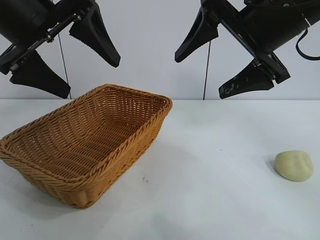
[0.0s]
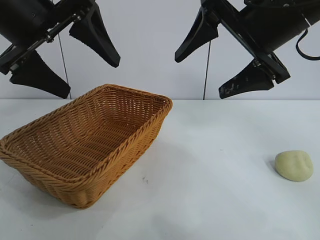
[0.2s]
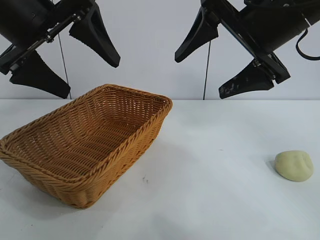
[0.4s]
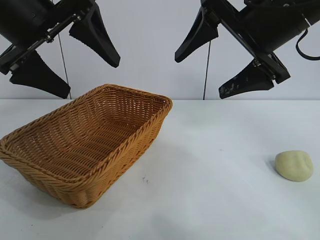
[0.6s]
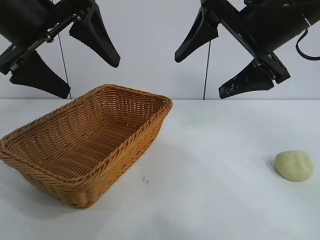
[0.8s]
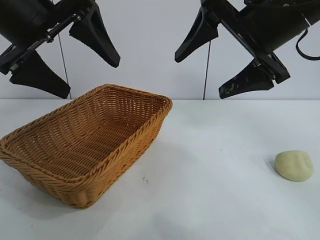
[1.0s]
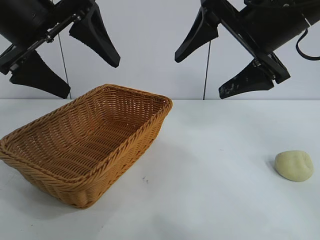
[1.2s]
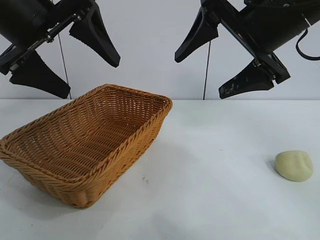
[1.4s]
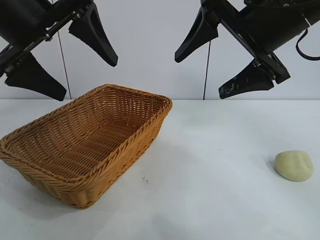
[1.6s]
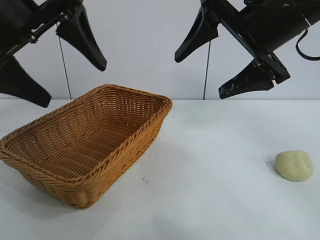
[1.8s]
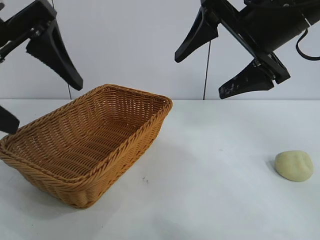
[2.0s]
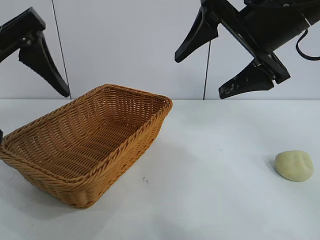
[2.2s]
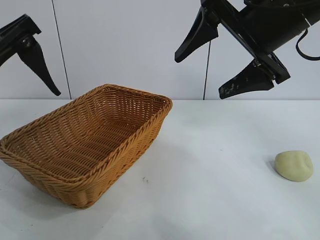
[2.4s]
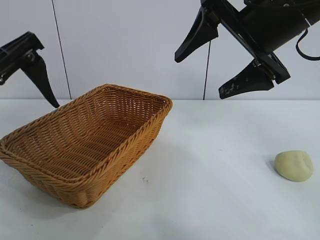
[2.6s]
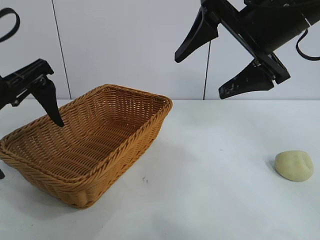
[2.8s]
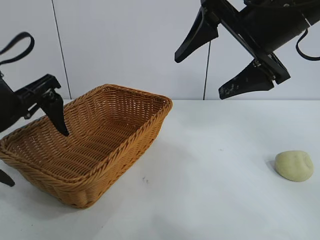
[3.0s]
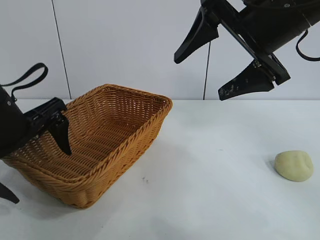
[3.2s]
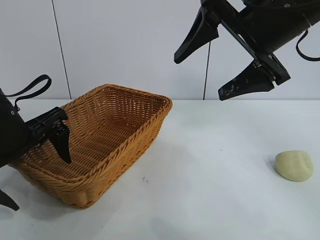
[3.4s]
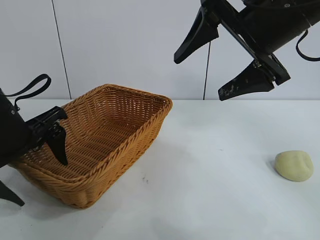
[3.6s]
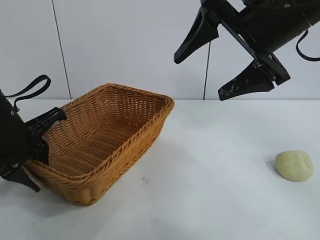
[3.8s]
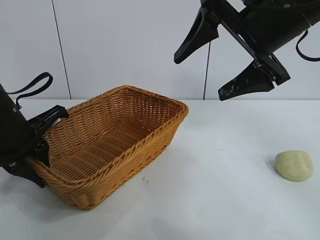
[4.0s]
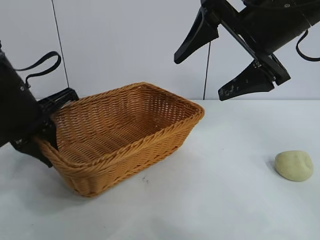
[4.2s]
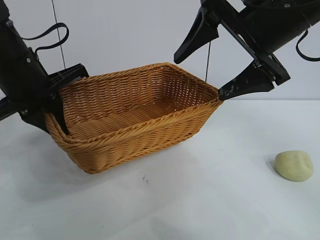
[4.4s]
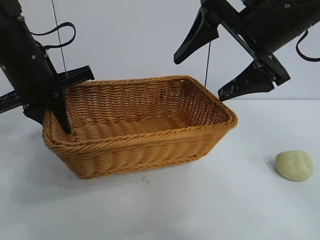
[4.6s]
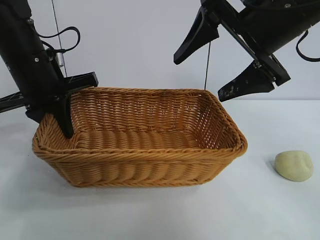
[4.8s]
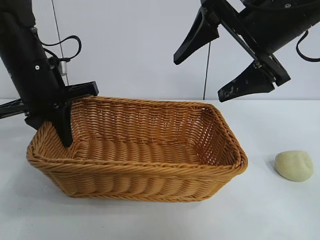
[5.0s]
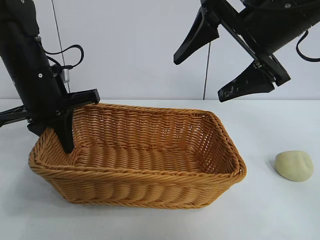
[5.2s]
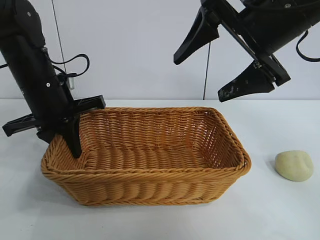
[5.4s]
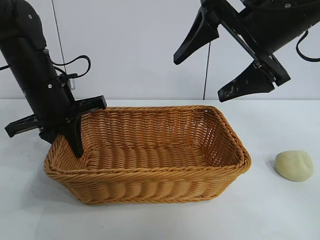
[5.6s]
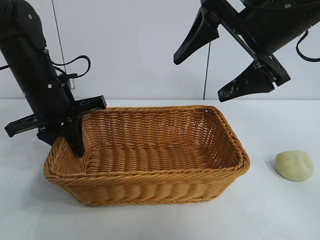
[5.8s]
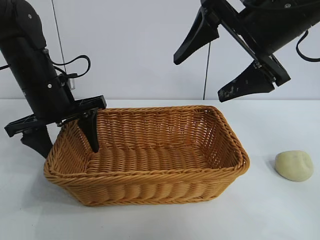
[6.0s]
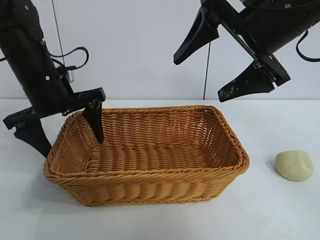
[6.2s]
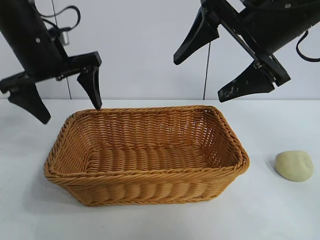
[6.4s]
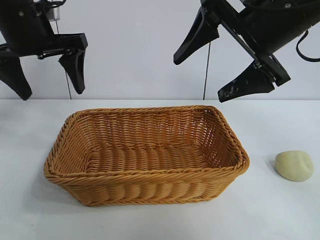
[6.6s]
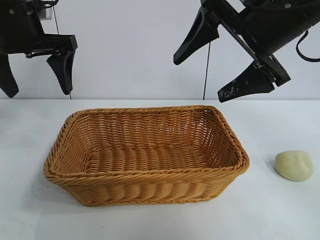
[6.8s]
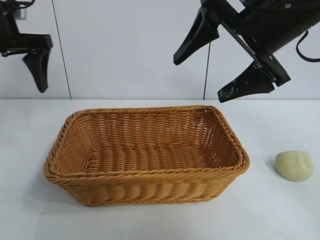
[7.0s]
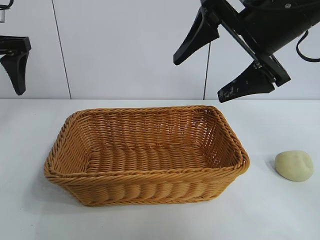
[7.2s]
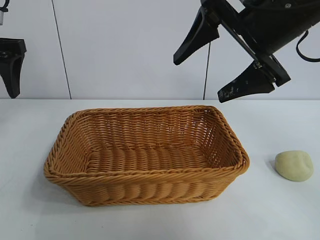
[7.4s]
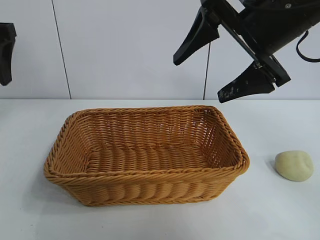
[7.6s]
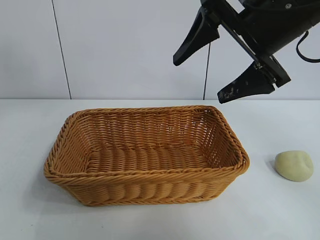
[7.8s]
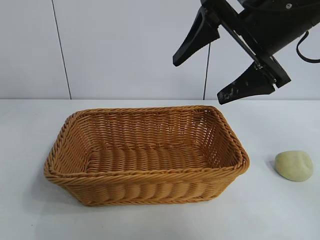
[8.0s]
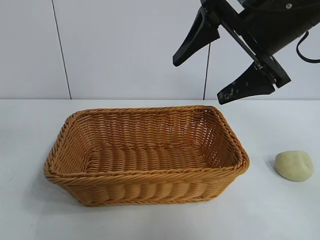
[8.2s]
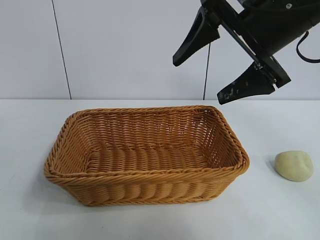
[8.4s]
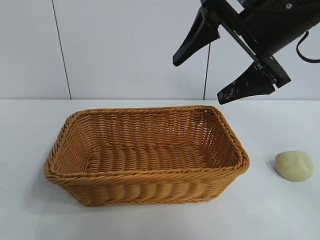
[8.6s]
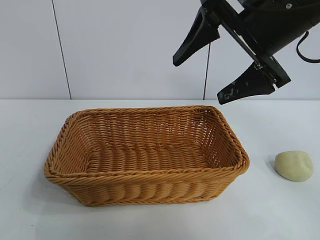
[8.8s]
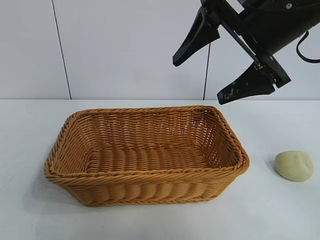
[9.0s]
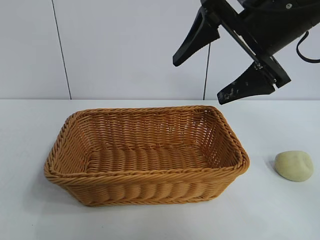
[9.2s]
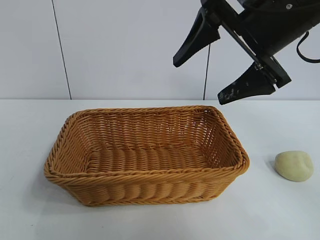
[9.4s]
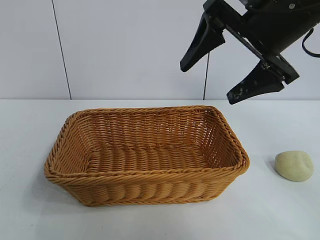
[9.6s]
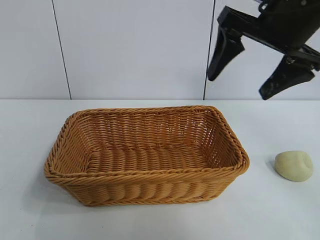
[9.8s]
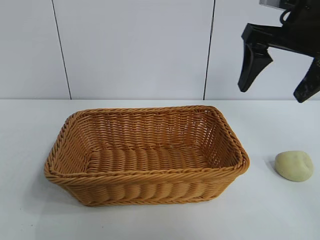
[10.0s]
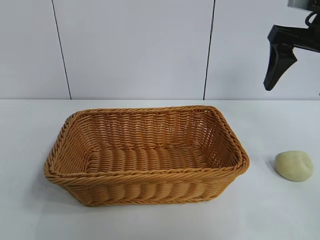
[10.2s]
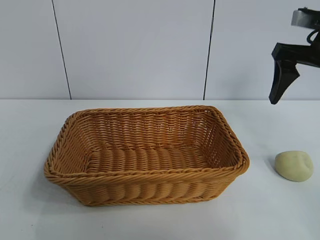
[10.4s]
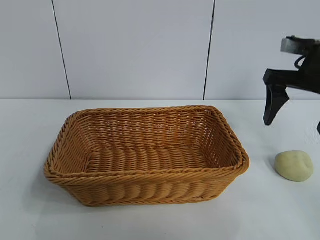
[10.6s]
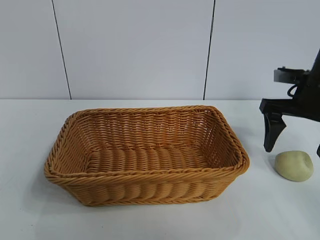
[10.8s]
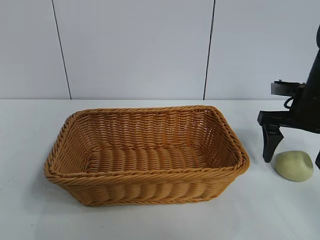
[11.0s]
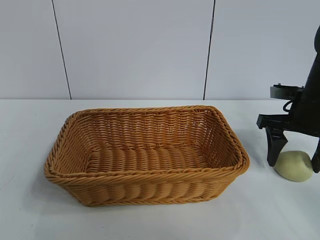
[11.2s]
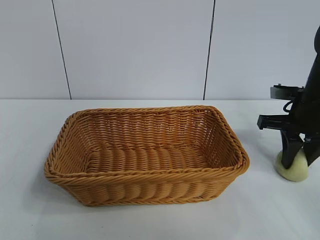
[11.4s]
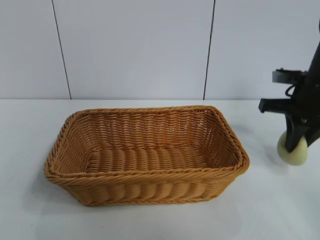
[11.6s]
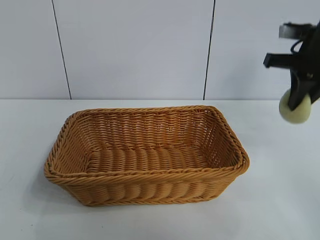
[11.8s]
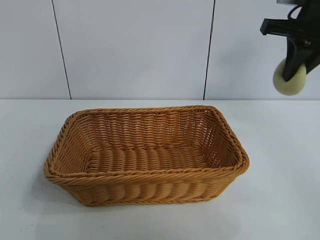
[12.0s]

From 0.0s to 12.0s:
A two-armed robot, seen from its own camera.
Task of the whole recording: pick up the egg yolk pastry and put it into the basket.
Step, from 1.4s to 3.8s: Grasp the basket with left gripper.
Step, from 4.0s to 6.0s: Place the basket in the center of view with left gripper.
Step, from 6.2s to 11.4s: Grasp egg yolk pastry with right gripper.

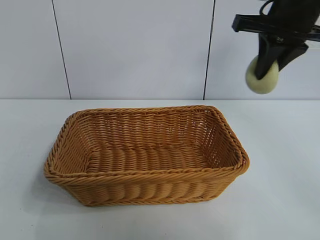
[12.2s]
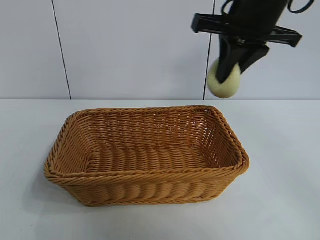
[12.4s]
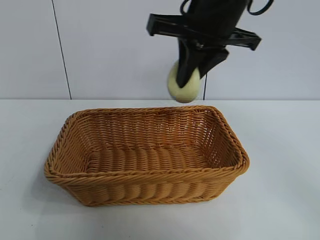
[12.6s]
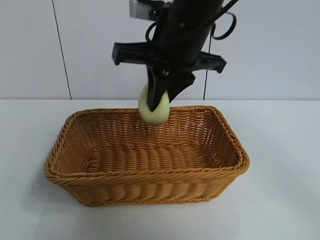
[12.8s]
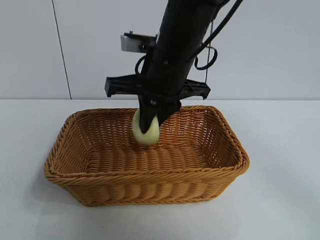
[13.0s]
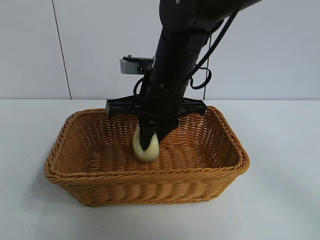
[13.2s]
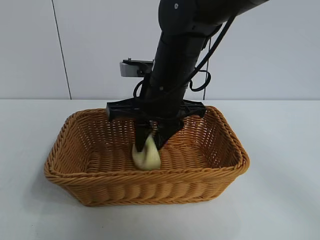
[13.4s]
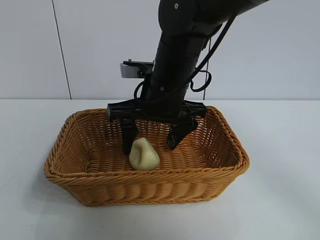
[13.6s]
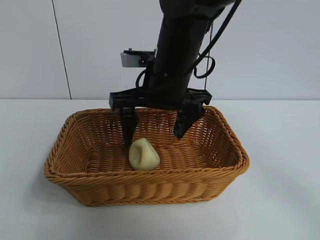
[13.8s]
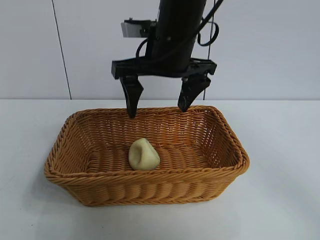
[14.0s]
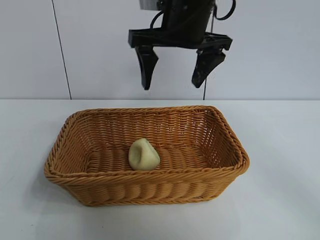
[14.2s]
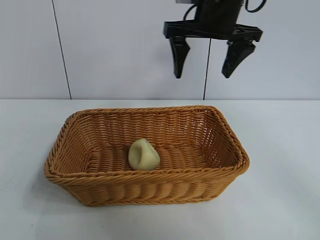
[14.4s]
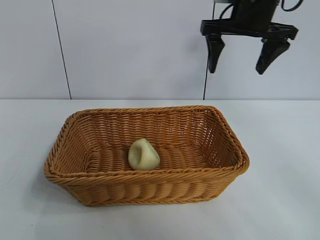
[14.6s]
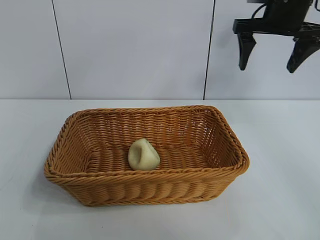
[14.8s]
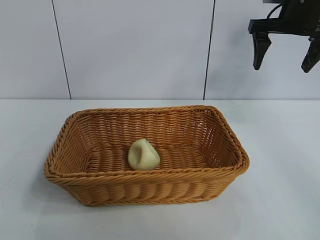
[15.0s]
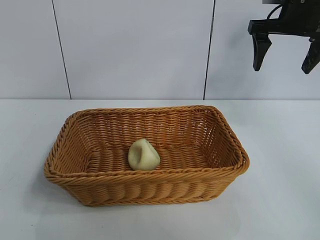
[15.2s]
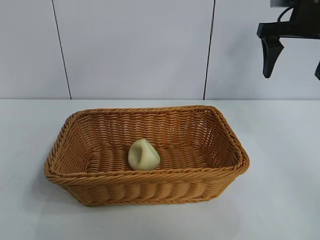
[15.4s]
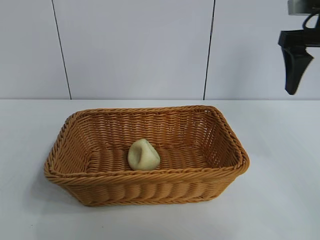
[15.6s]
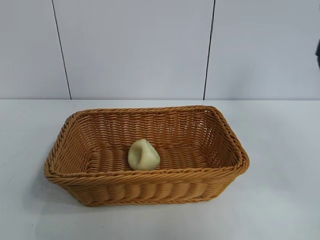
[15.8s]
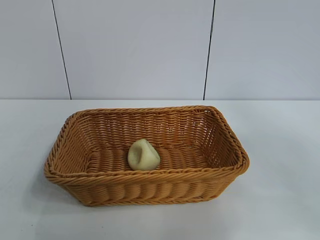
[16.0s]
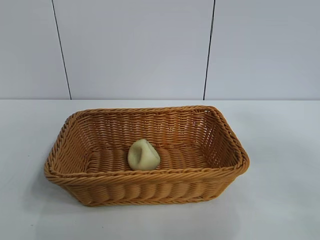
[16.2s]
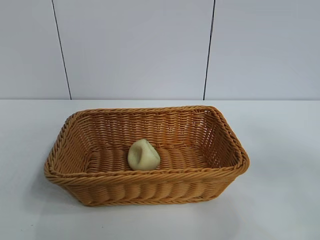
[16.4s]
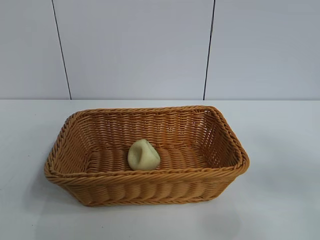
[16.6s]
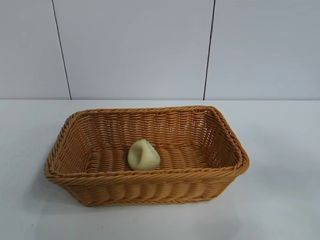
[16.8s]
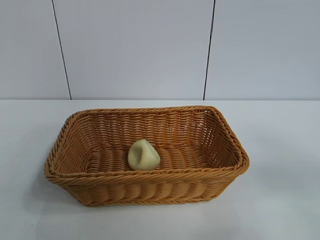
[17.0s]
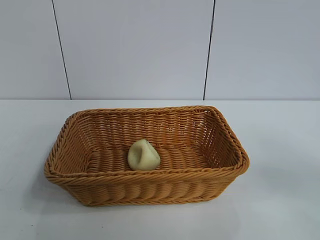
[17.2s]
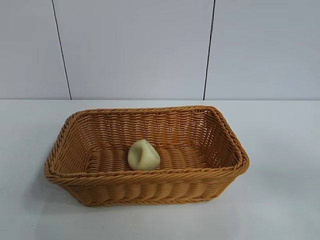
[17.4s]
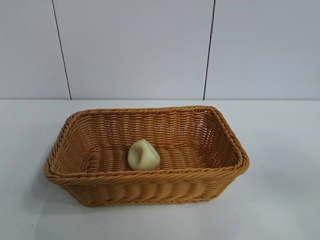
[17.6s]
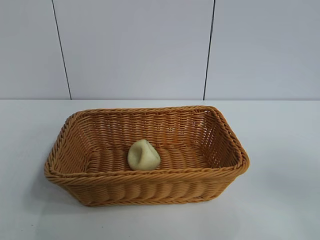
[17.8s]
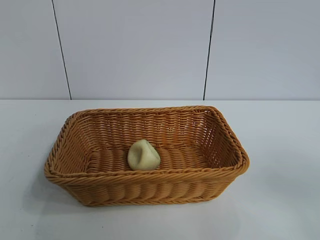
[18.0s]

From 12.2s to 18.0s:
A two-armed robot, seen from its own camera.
Task of the whole recording: pick up the egg yolk pastry and put it into the basket.
Step, from 12.2s to 13.6s: Place the egg yolk pastry in the basket with right gripper.
